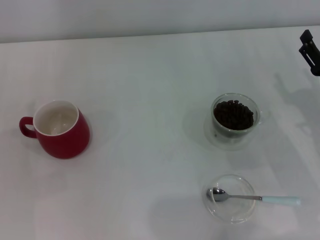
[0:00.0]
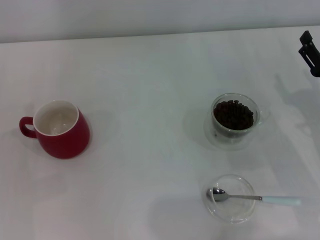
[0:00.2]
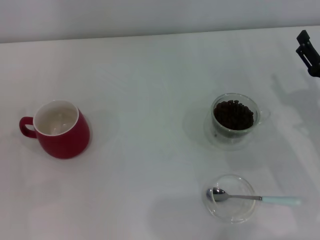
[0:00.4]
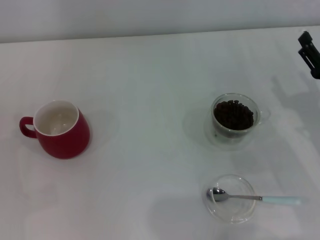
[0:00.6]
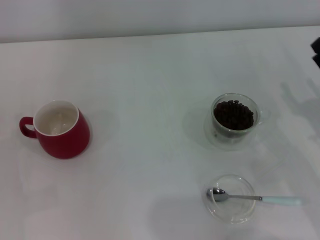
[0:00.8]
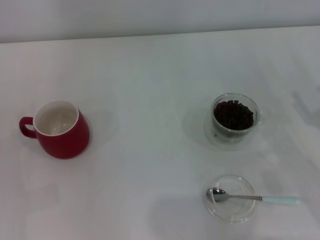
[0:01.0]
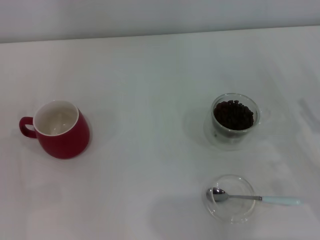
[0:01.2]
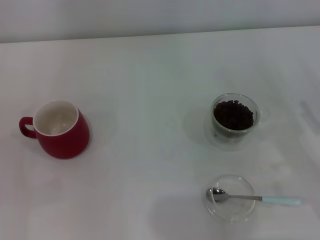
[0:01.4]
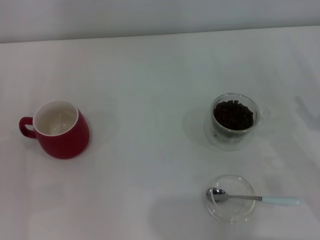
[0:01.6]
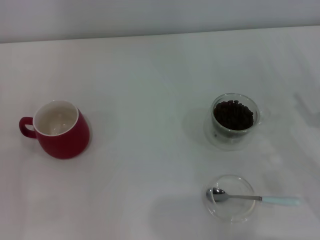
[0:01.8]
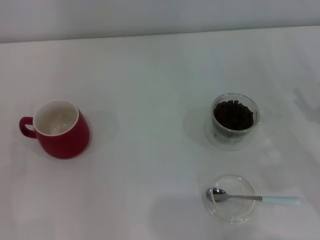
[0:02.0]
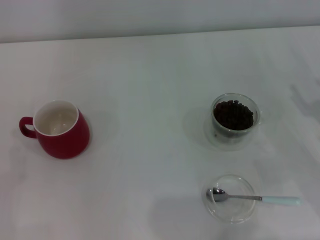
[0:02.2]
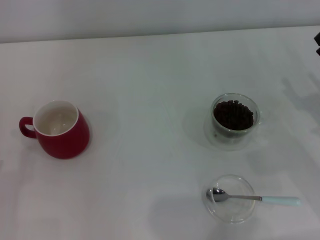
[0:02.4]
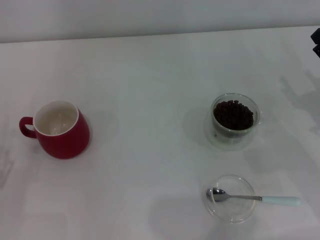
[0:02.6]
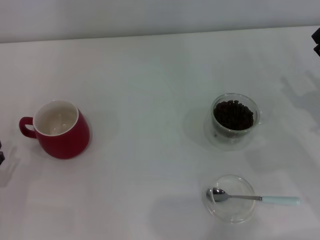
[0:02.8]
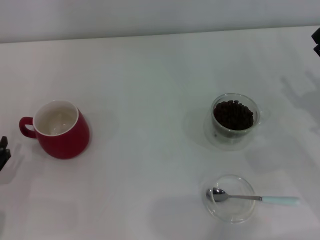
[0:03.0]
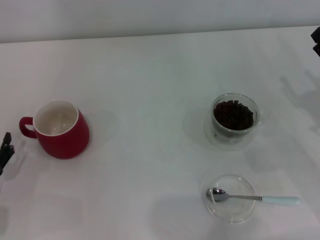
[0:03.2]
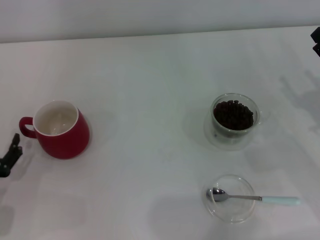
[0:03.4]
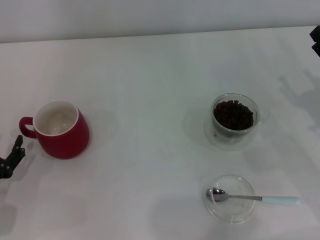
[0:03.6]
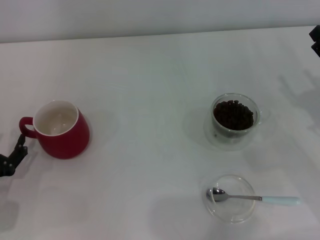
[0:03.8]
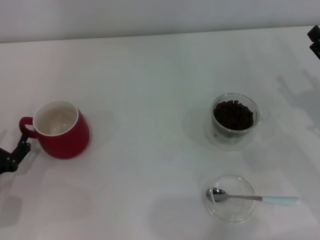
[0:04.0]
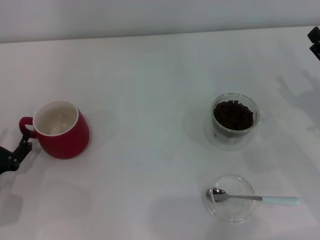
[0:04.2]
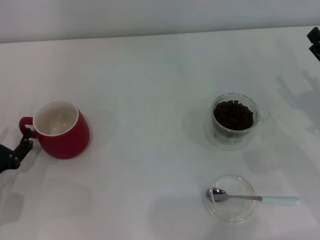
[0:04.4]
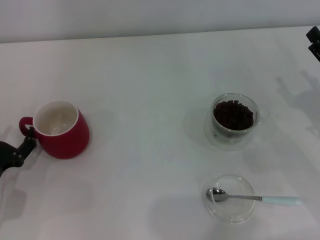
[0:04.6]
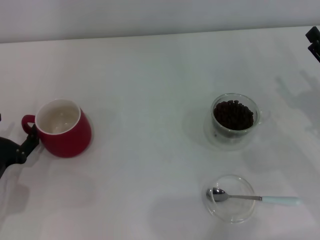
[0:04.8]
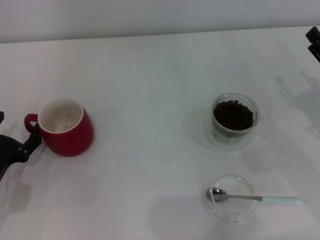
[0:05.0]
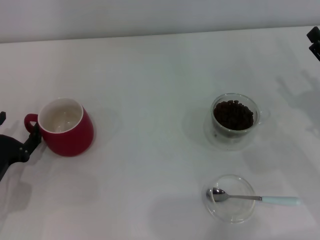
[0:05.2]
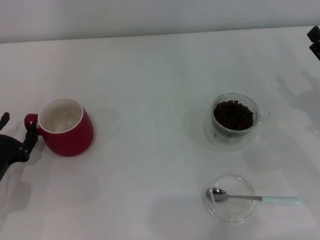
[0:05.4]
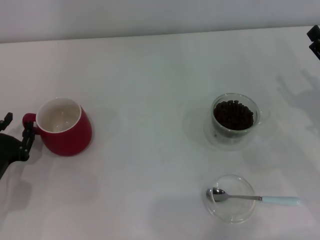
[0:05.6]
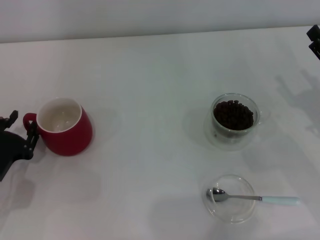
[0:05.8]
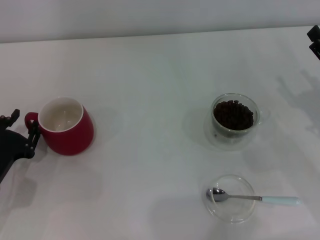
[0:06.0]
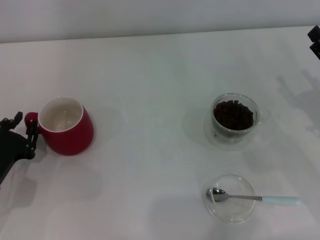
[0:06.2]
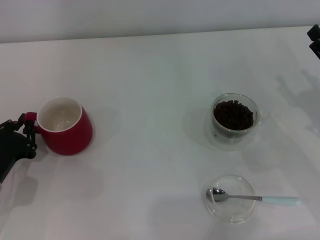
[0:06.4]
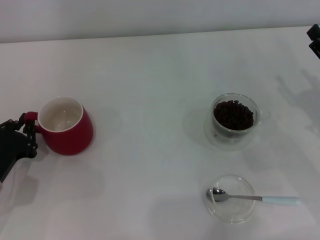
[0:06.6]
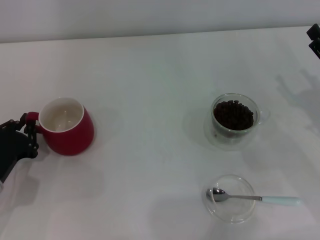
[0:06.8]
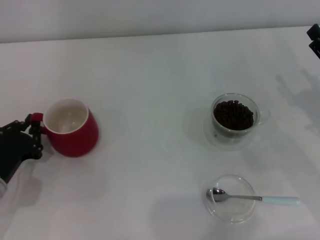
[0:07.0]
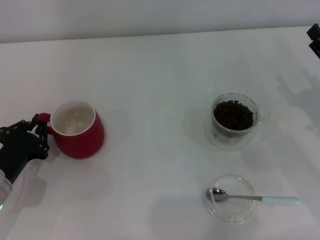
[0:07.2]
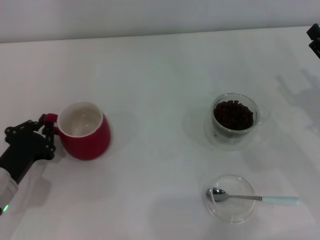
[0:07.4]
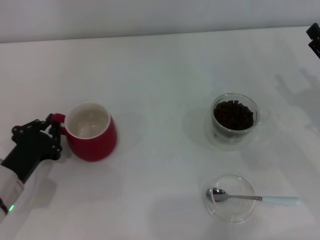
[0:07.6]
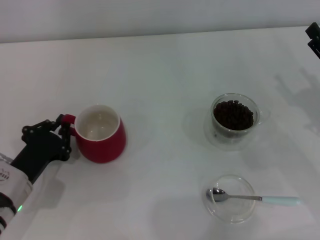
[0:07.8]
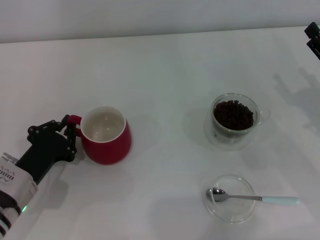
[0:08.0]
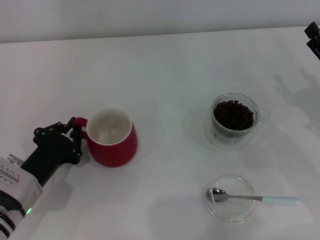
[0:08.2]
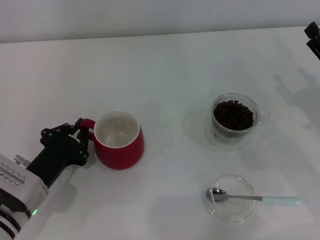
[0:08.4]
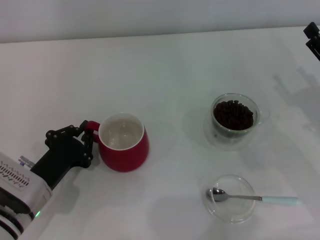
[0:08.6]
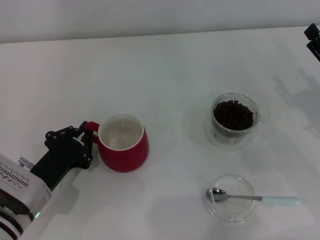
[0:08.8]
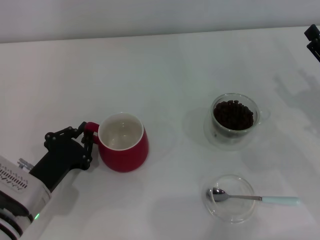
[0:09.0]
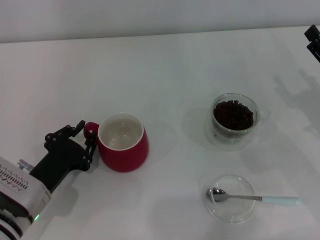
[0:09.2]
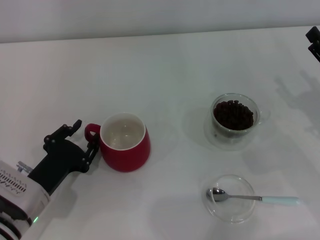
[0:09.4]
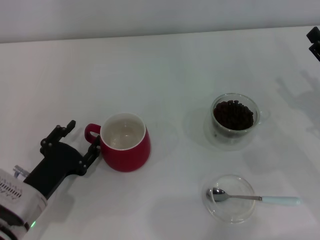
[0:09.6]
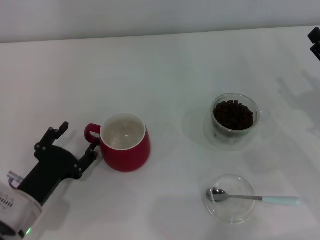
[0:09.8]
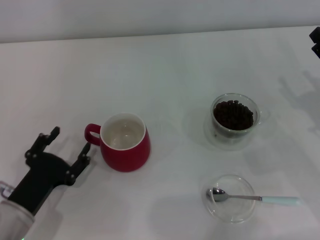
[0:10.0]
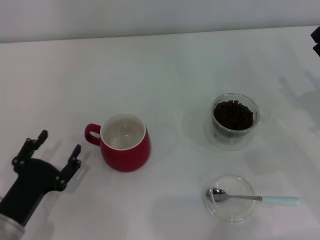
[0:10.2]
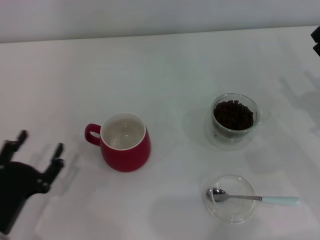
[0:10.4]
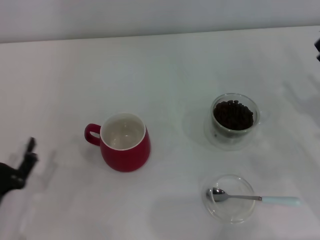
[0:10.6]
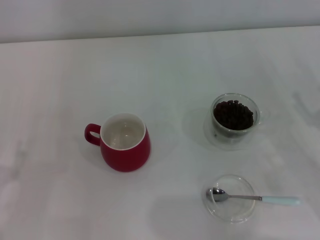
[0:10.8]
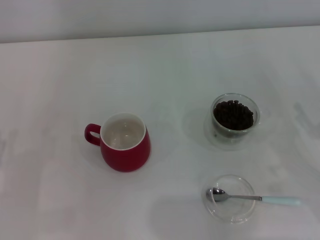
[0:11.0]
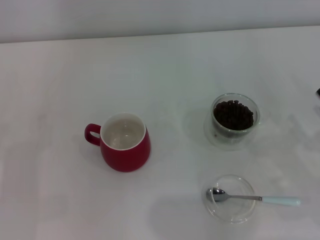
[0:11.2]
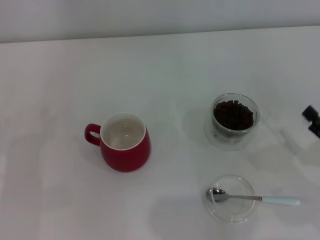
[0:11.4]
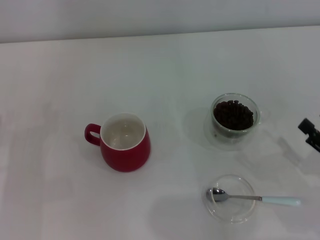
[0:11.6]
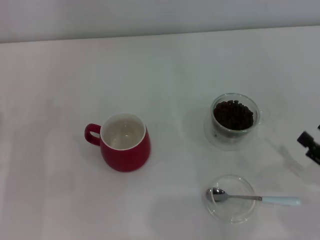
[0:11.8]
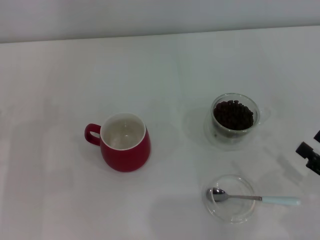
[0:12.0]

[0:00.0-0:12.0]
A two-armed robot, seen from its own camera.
Task of the whole recording: Use a blue spoon to take out the coffee beans from the glass and pour them into the red cup.
Step, 0:00.0 to 0:10.0: Move the cup to the center of view with the left gripper.
0:00.0 to 0:01.6: The right gripper shifts approximately 5 cm backward.
0:03.0 to 0:04.4: There are only small adjustments of the grippers.
0:04.4 to 0:06.0: The left gripper closes up.
0:06.0 to 0:07.6: The left gripper closes.
0:07.6 to 0:09.0: The grippers make only small movements.
0:09.0 to 0:10.4: The left gripper heads backward, covering about 5 cm, and opens its fingers.
0:10.4 to 0:12.0: The left gripper moves forward and to the left, about 10 cm, while the right gripper travels backward by some 15 cm.

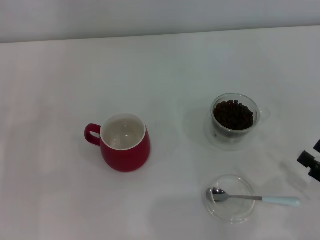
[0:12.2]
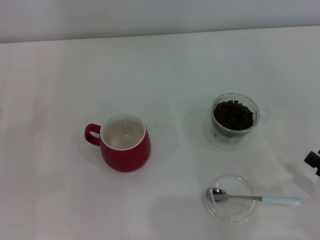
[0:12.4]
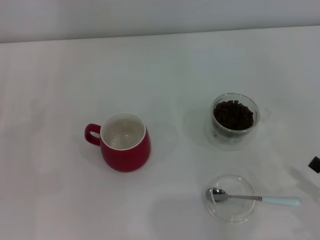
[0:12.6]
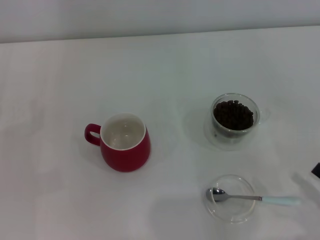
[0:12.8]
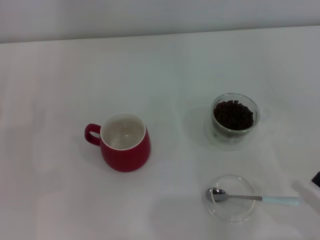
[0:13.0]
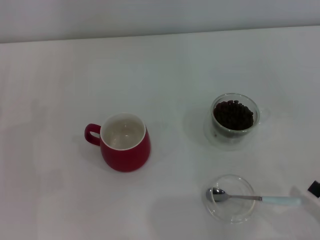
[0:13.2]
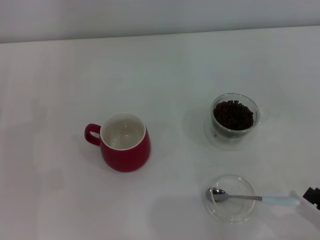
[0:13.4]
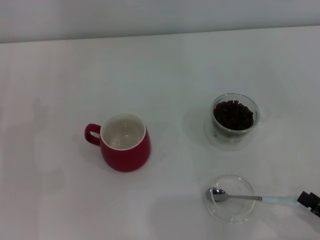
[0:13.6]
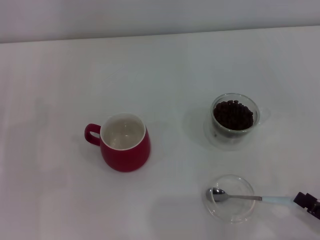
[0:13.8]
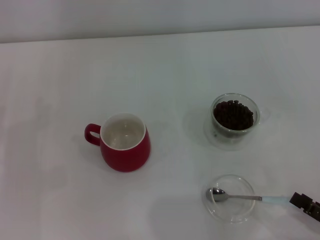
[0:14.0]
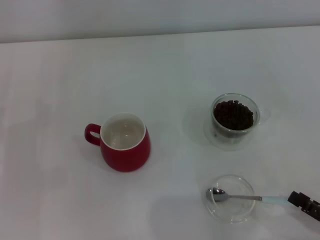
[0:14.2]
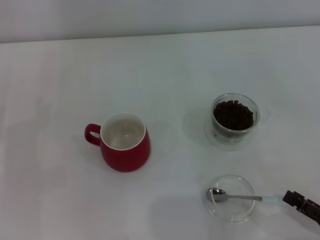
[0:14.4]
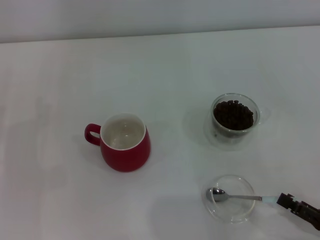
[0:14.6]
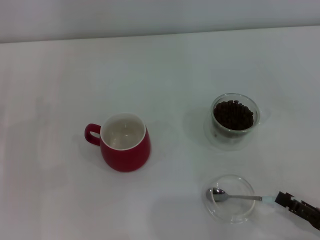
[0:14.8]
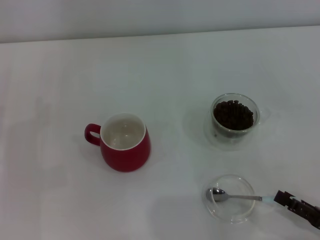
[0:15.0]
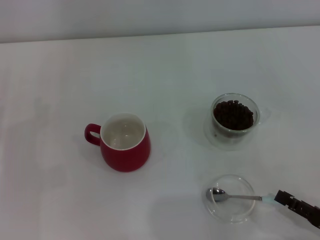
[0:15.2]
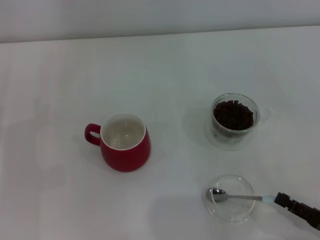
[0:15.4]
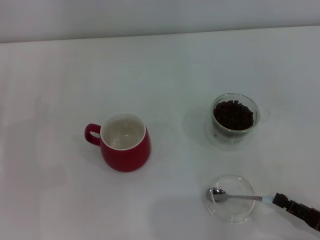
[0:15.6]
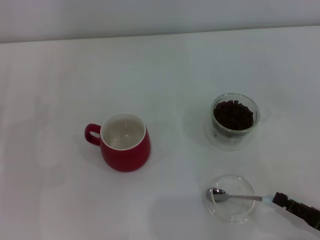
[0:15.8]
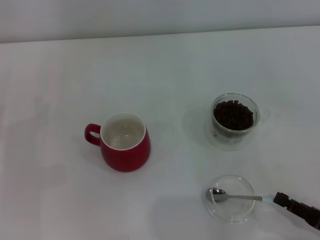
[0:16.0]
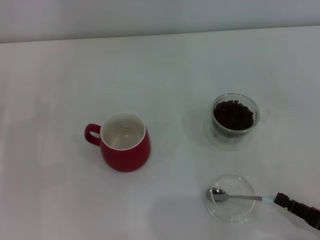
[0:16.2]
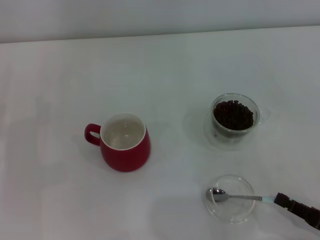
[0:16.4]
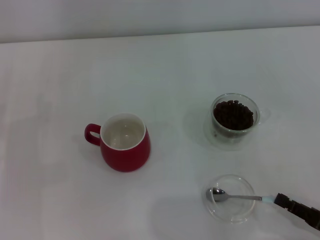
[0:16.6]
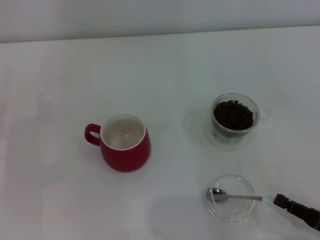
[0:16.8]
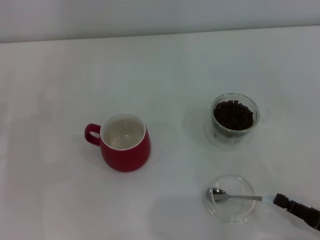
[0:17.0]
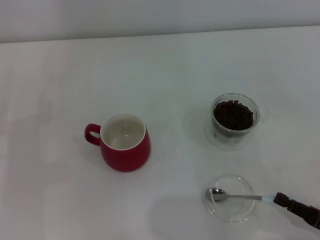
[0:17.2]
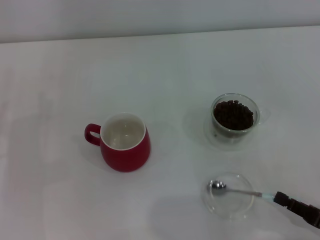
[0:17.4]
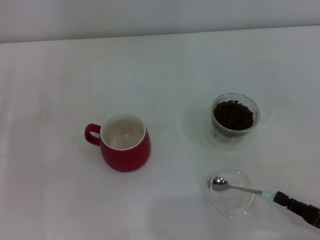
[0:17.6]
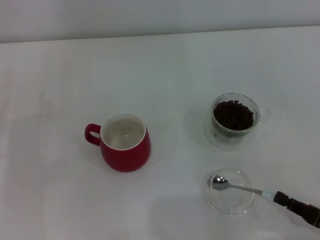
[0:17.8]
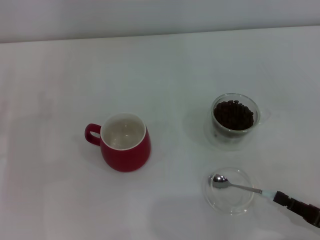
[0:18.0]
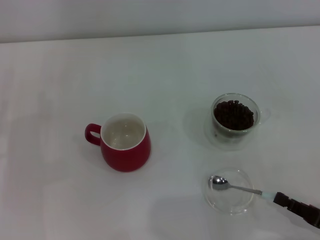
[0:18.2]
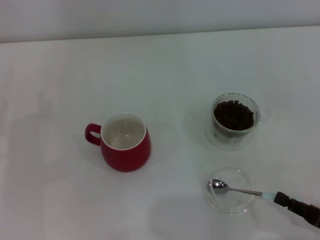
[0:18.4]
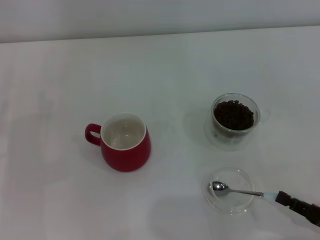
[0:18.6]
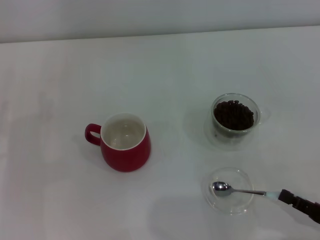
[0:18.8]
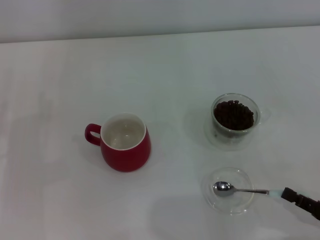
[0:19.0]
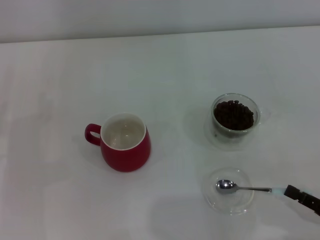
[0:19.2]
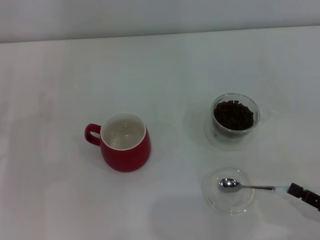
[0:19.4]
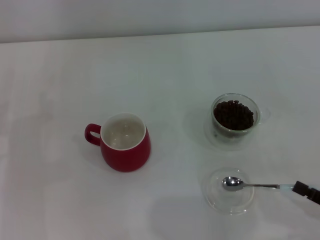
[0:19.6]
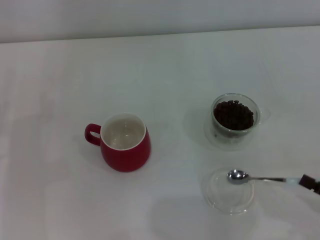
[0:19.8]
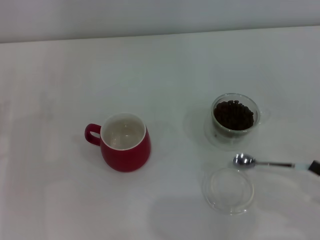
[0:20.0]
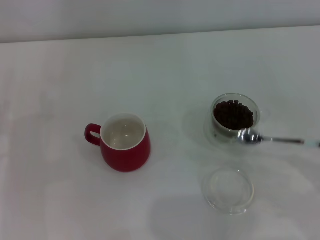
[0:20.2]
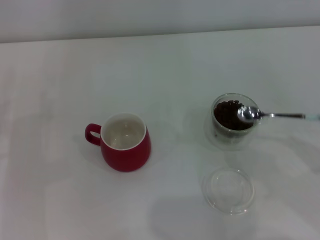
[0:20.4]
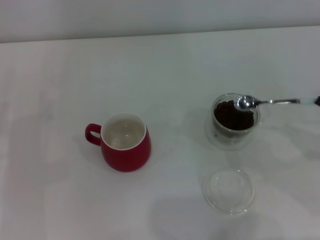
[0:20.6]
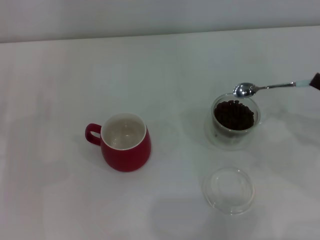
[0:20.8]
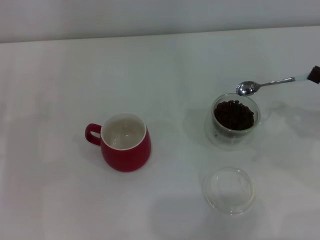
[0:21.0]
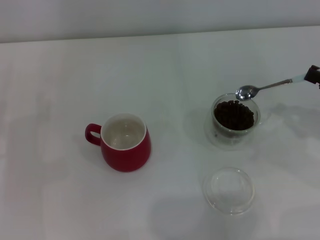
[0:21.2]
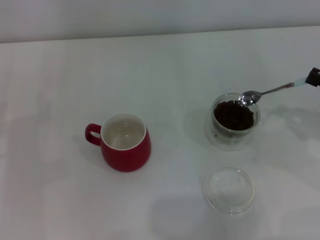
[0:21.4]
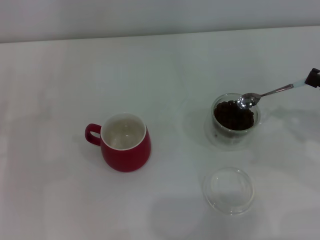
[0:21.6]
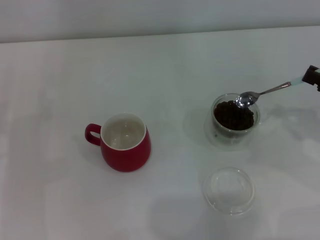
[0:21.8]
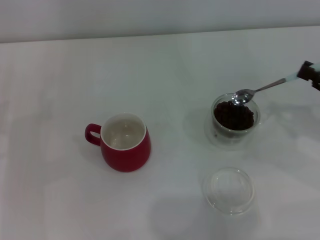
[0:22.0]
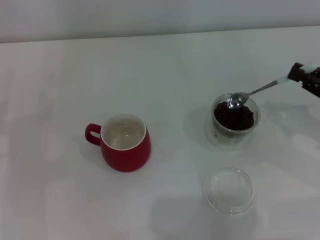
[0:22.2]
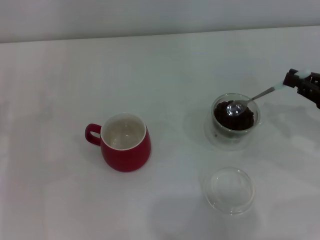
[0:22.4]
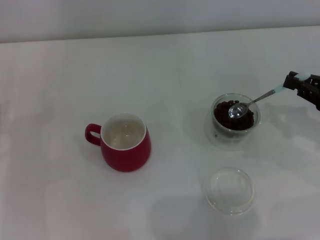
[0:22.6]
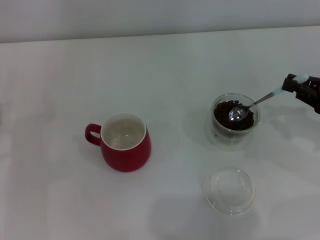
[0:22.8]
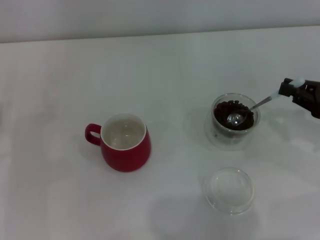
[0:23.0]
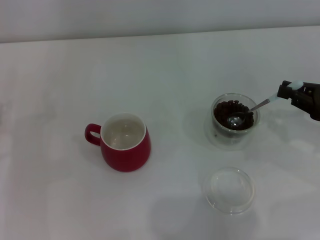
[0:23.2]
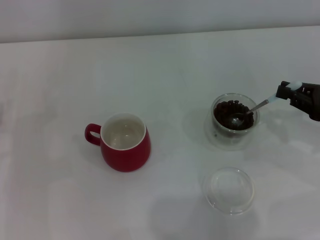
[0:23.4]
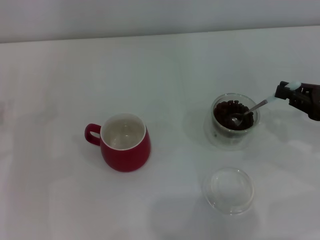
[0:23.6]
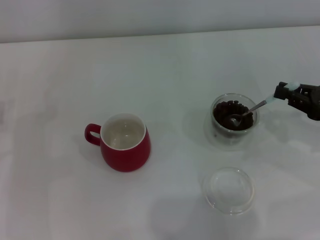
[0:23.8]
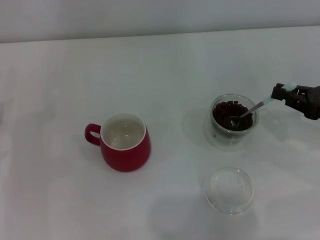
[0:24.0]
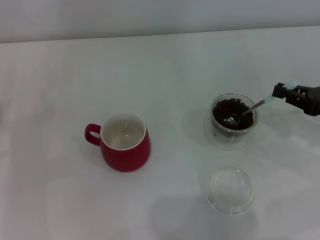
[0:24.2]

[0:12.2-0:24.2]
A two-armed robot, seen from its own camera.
Task of the whole recording: Use a blue spoon to take out the coffee beans from the glass and pour them into the red cup.
Step, 0:12.2 to 0:19.8: Pick up the spoon with the right gripper.
0:12.2 to 0:13.8: The right gripper changes place by about 5 cm.
0:13.8 to 0:15.2: The grippers move only a little.
0:16.6 to 0:18.2: Both grippers stay put.
0:18.2 to 0:19.8: The grippers stay close to where they were, moving slightly.
0:19.8 to 0:21.2: The right gripper shifts about 15 cm forward and upward.
0:21.2 to 0:24.2: The grippers stay close to where they were, moving slightly.
